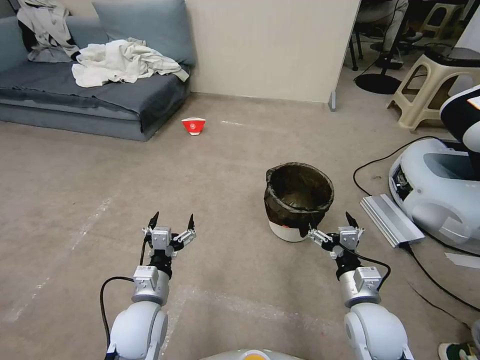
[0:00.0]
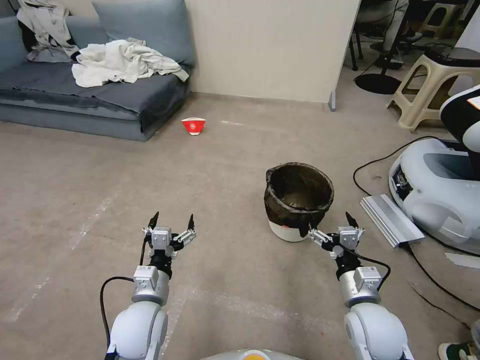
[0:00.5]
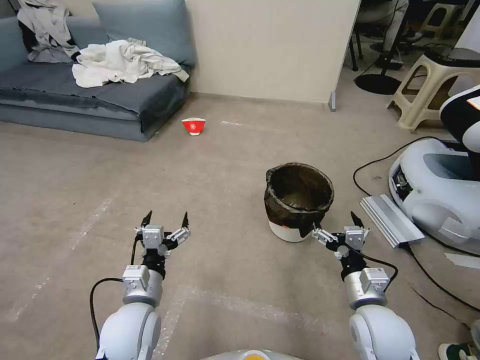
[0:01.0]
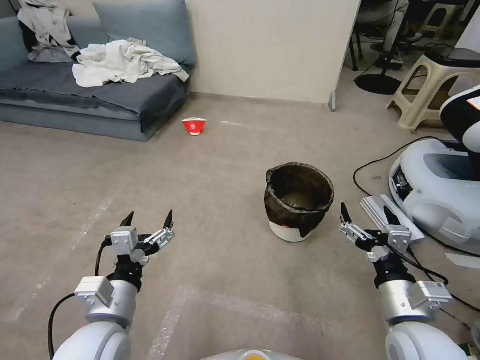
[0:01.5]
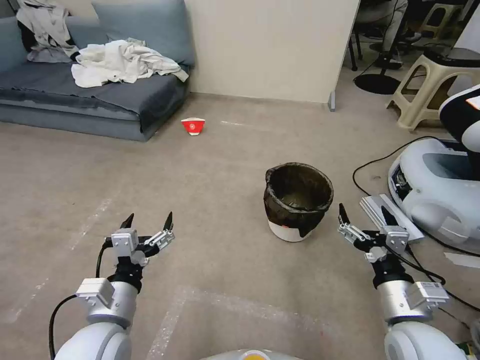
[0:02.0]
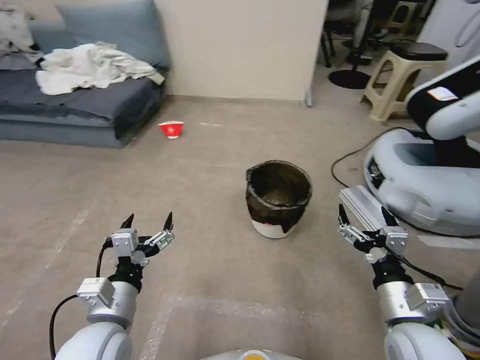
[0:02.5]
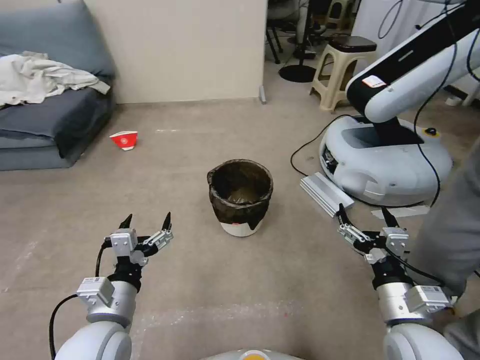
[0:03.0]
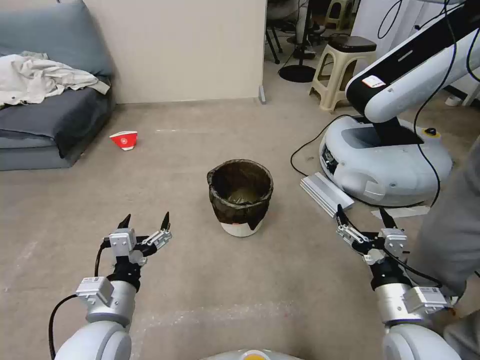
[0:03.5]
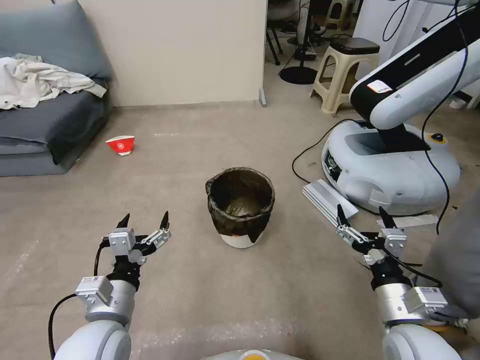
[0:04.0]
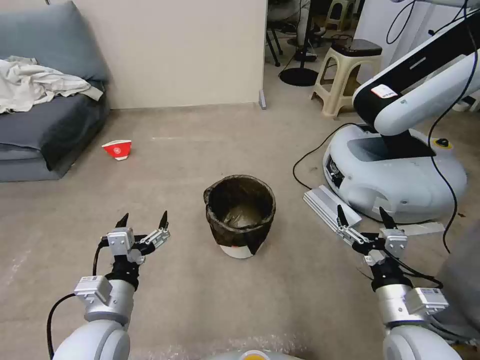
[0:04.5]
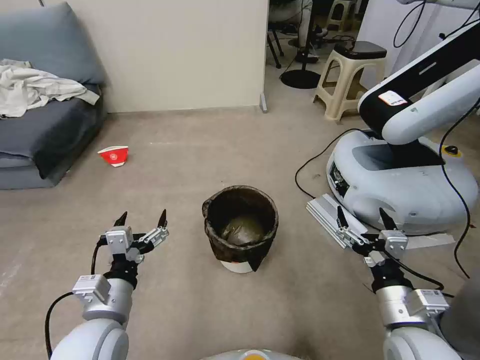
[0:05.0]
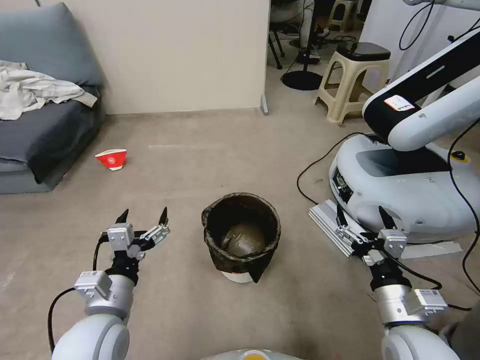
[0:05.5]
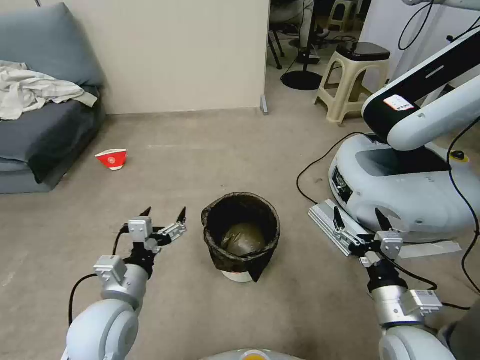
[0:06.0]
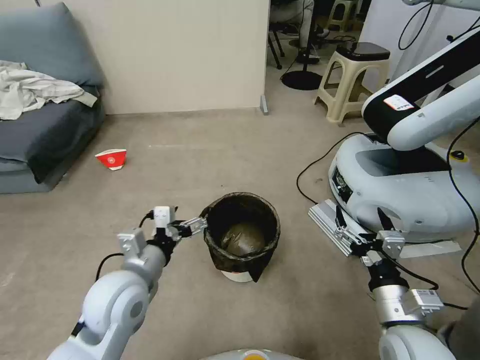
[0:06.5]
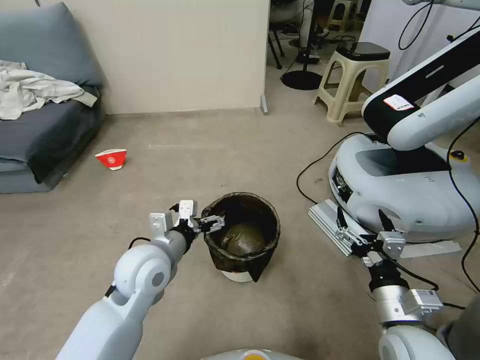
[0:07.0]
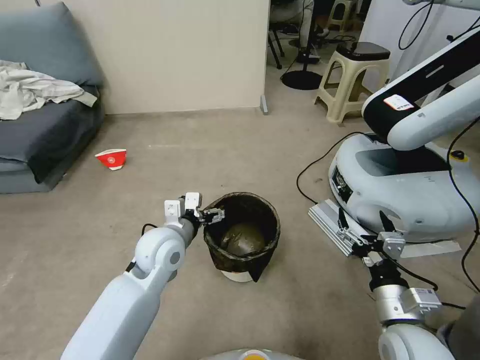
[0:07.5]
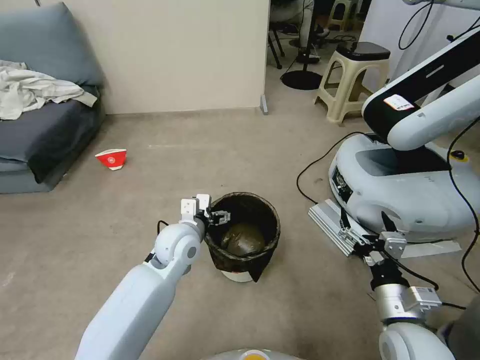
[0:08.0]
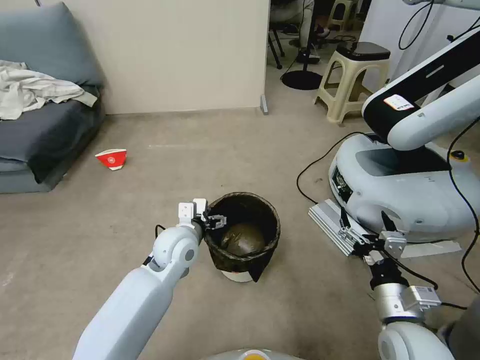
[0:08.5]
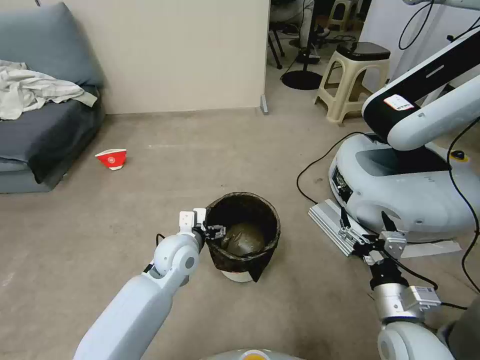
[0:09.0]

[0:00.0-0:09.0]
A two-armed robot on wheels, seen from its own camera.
Task of the whole recording: Pick up the trash can from the floor.
0:04.5 to 0:07.0: The left gripper shifts about 10 cm forward.
0:07.0 to 0:09.0: The left gripper is displaced downward and forward by some 10 cm.

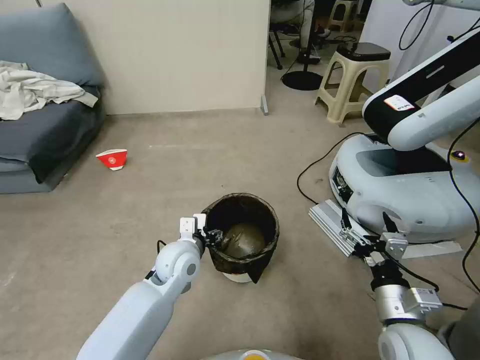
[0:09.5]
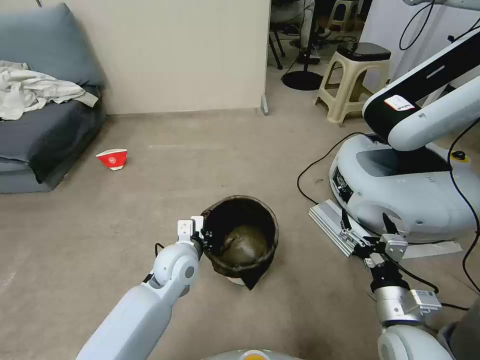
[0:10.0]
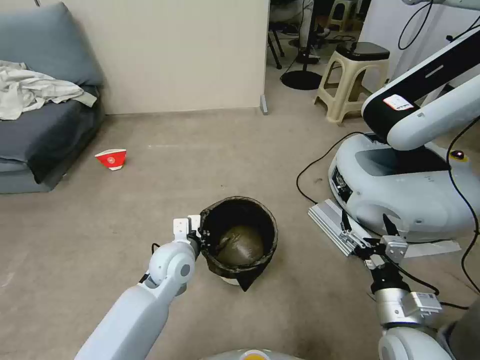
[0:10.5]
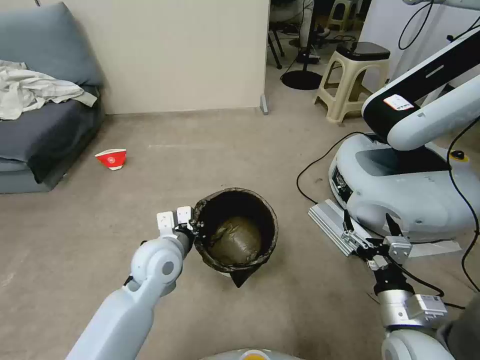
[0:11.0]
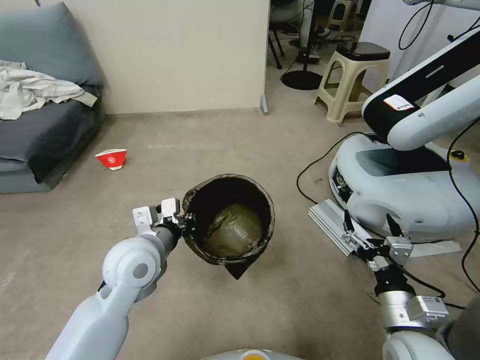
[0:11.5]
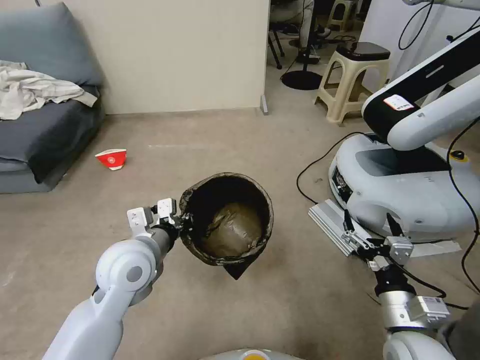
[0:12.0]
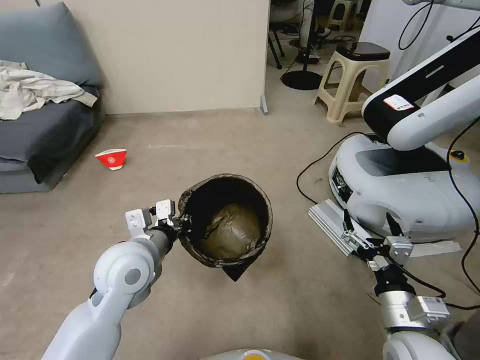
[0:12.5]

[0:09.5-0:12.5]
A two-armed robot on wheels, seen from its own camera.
Task of the whole recording: Pick up the trash can from the floor.
0:09.5 to 0:11.0: The left gripper moves upward, roughly 5 cm, and closes up.
0:11.0 to 0:12.5: The left gripper moves about 5 cm.
